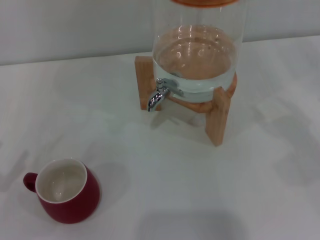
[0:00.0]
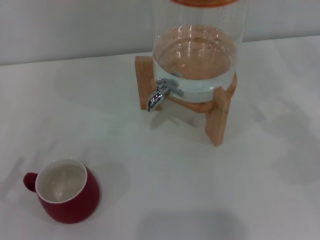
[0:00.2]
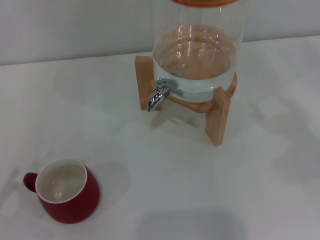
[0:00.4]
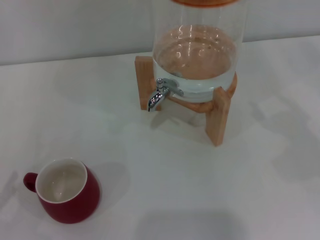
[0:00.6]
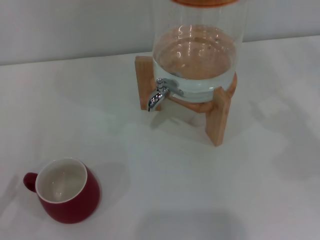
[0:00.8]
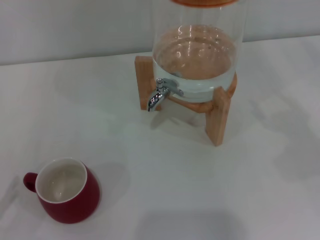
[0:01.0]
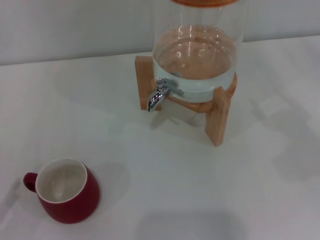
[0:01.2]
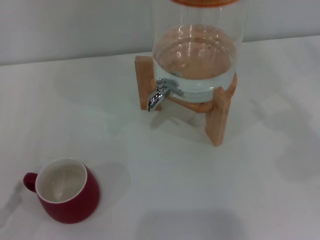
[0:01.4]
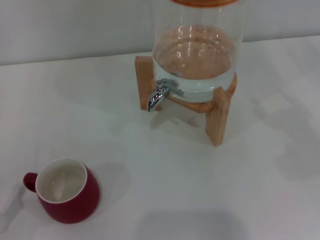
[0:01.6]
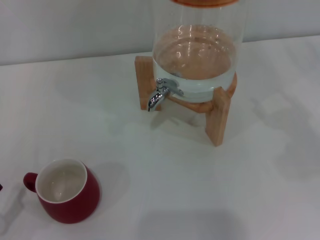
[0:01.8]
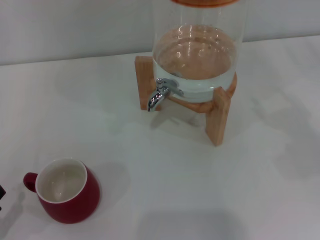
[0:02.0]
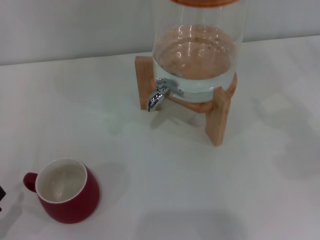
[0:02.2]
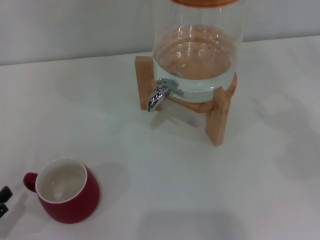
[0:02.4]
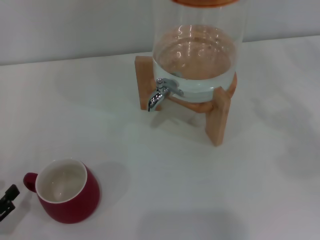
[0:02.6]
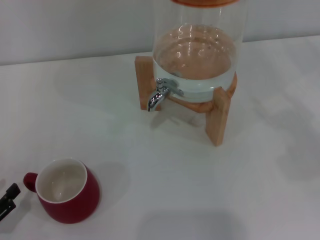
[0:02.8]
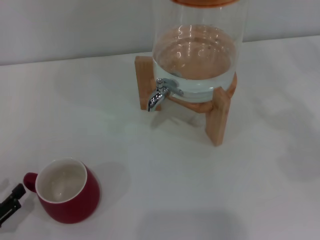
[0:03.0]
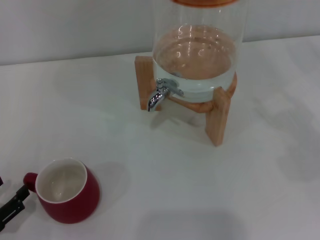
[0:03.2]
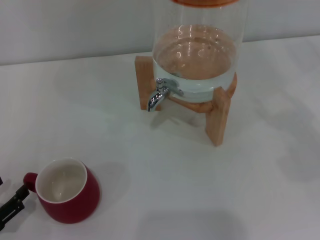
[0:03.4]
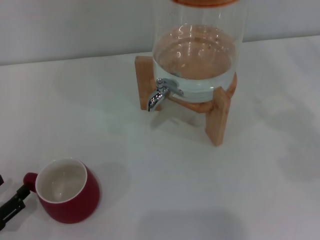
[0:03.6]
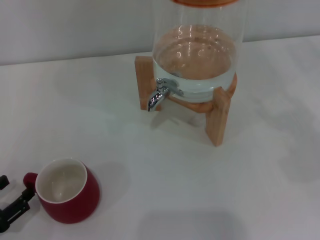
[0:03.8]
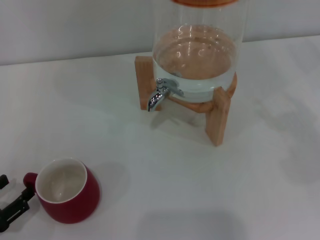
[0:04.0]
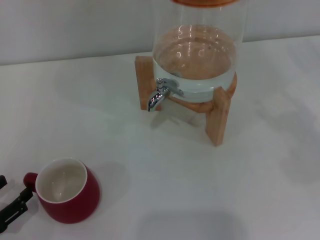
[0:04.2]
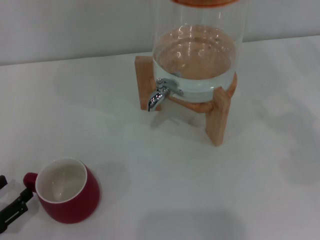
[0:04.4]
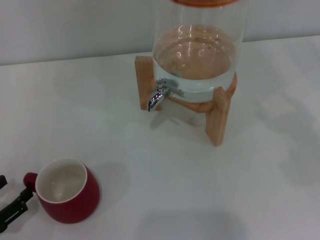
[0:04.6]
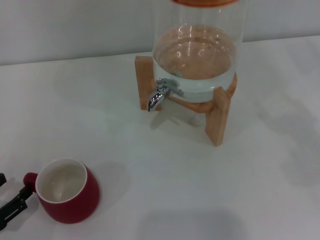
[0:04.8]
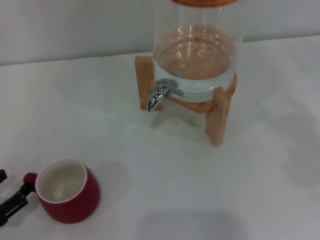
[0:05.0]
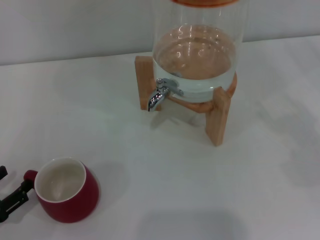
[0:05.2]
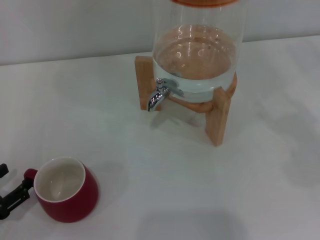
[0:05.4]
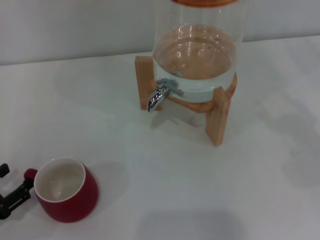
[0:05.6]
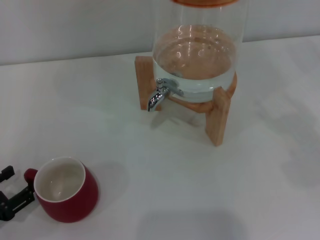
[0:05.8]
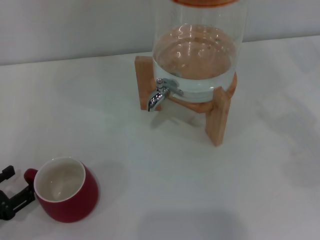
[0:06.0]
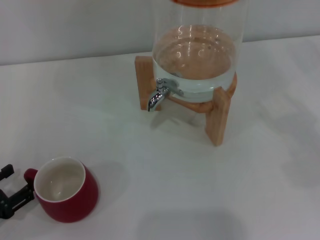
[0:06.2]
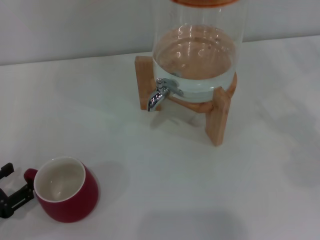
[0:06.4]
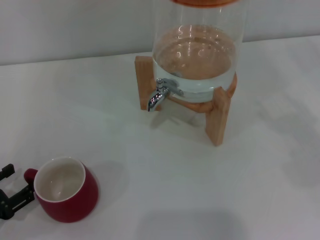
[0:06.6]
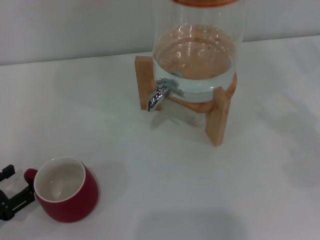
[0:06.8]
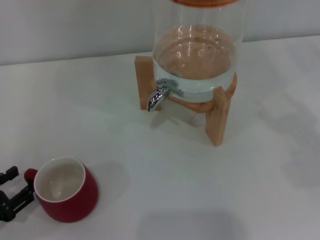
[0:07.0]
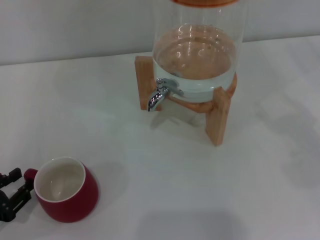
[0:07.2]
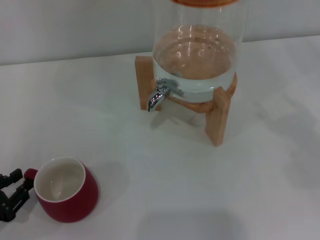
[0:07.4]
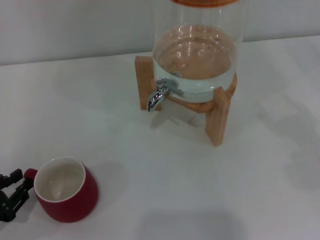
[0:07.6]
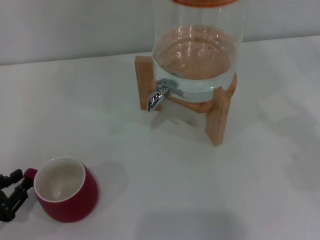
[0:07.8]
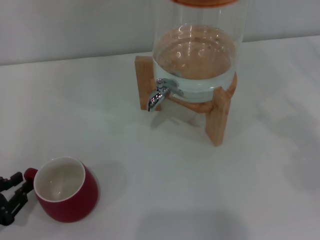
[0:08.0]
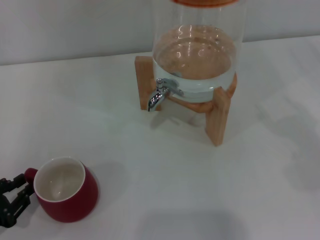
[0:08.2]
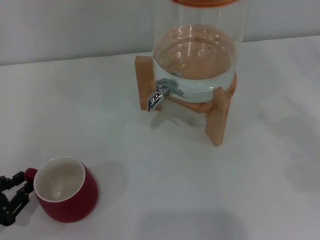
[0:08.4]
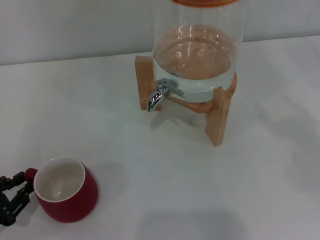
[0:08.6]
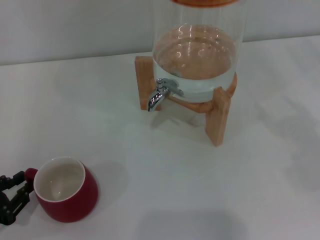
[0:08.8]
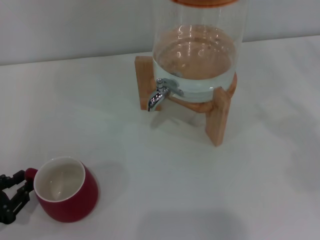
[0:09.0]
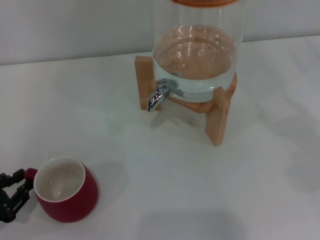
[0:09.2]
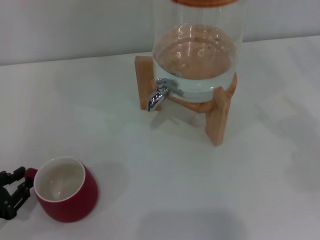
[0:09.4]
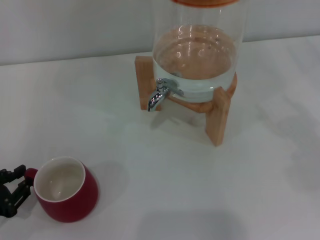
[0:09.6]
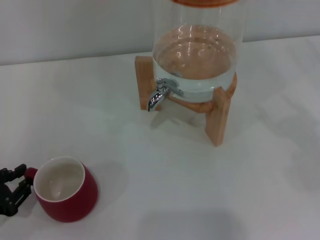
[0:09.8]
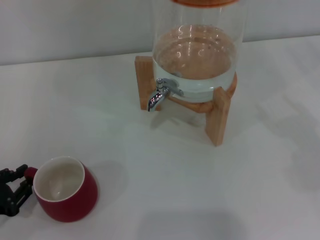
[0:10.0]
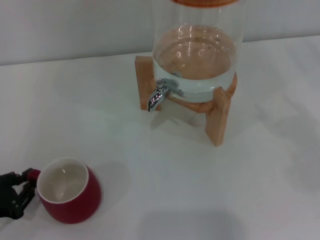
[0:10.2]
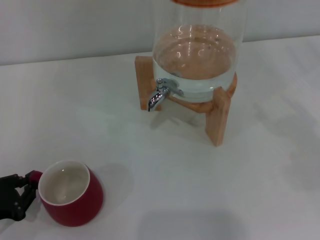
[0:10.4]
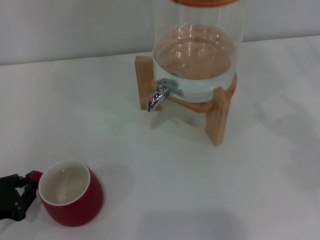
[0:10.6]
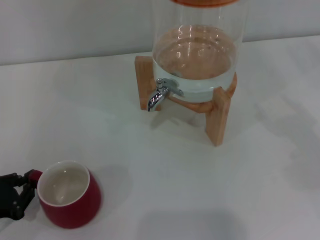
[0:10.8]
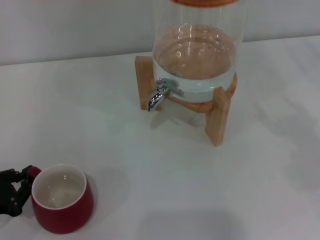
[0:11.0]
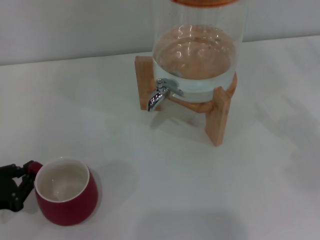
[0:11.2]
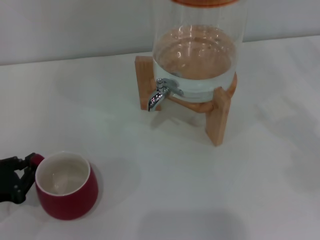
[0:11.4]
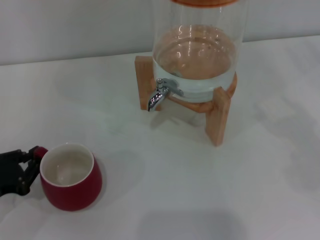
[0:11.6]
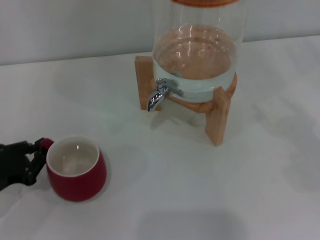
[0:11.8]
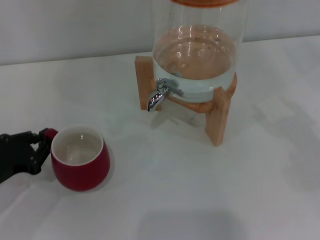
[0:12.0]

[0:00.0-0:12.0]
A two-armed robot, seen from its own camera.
Task of the whole recording: the left gripper pick up the red cup and place it horizontally under the faucet, the right gripper turn on the faucet to fill the cup, and then turn off the faucet.
0:01.6 to 0:03.0: The grippers make only small movements.
0:03.0 to 0:04.4: Both grippers stay about where they are.
0:04.4 to 0:06.0: There are only small adjustments of the grippers.
0:06.0 to 0:07.6: The left gripper closes its fingers.
0:07.6 to 0:09.0: Both grippers stay about where they are.
0:09.0 to 0:10.4: The grippers make only small movements.
0:10.4 to 0:12.0: The left gripper heads forward, covering roughly 5 cm.

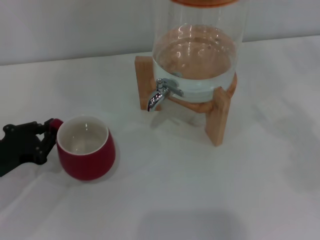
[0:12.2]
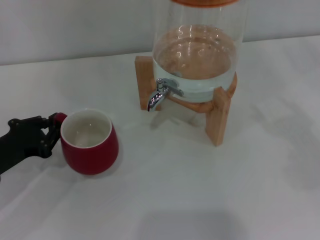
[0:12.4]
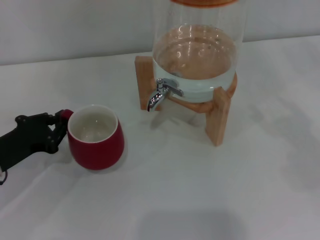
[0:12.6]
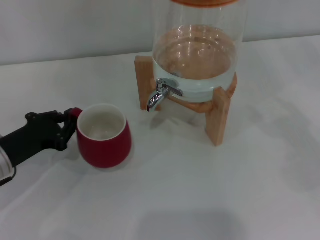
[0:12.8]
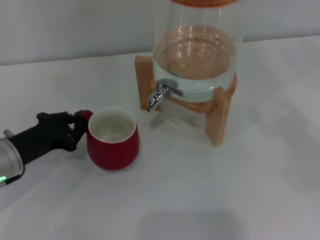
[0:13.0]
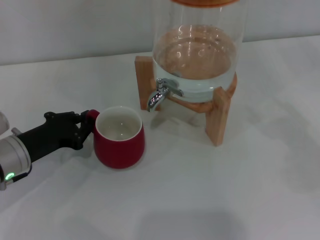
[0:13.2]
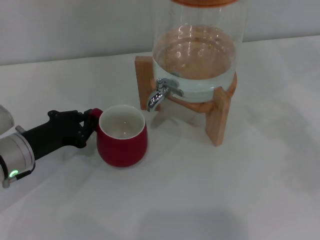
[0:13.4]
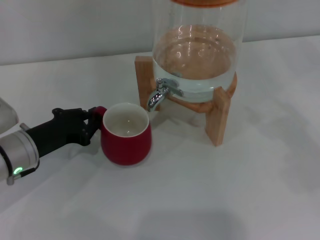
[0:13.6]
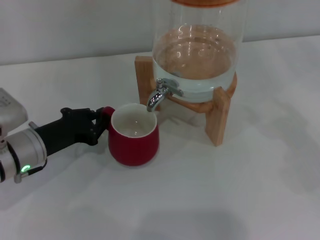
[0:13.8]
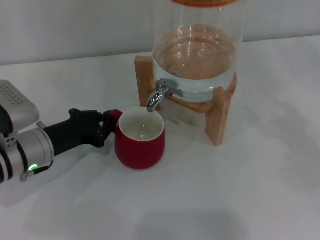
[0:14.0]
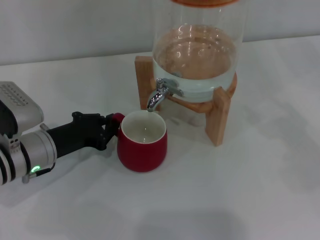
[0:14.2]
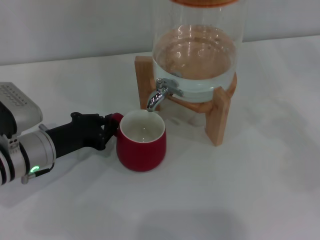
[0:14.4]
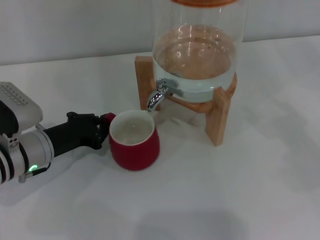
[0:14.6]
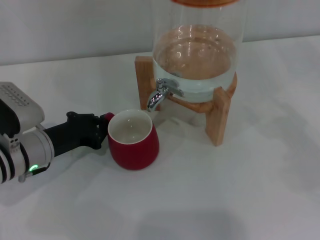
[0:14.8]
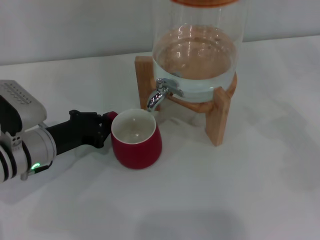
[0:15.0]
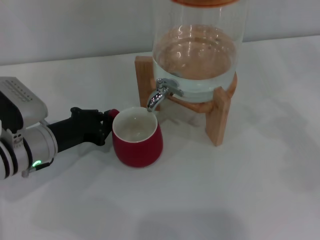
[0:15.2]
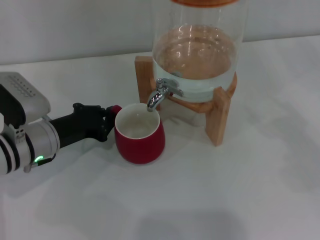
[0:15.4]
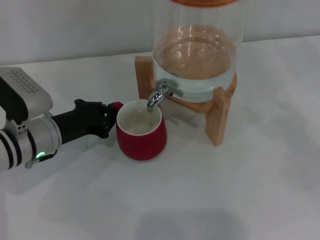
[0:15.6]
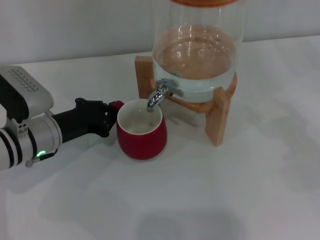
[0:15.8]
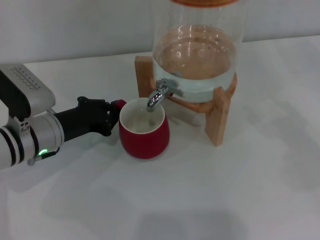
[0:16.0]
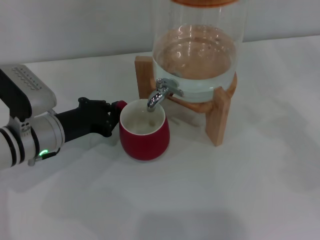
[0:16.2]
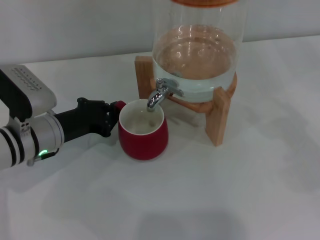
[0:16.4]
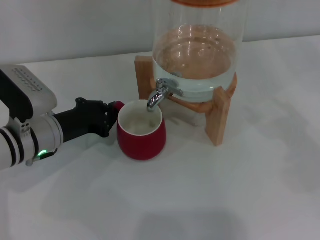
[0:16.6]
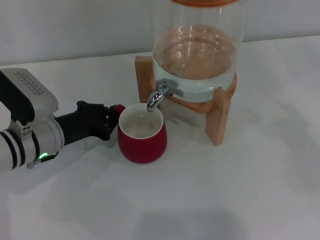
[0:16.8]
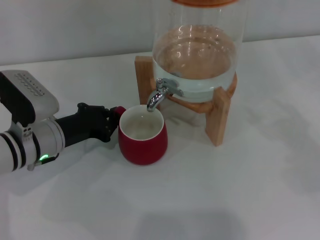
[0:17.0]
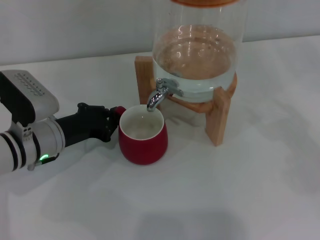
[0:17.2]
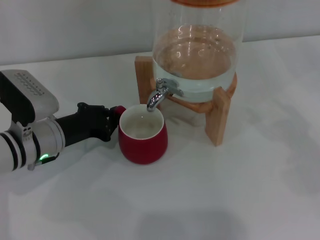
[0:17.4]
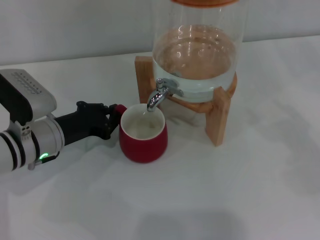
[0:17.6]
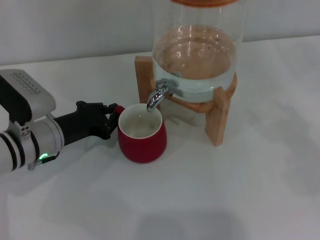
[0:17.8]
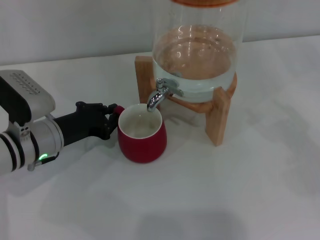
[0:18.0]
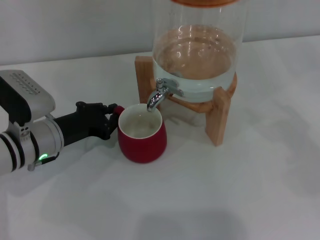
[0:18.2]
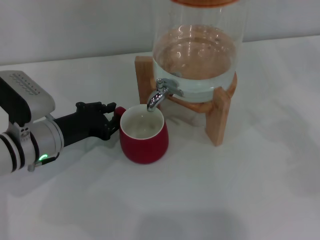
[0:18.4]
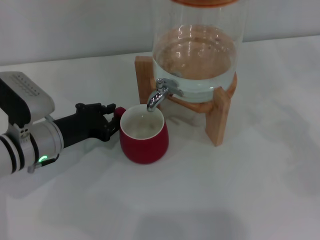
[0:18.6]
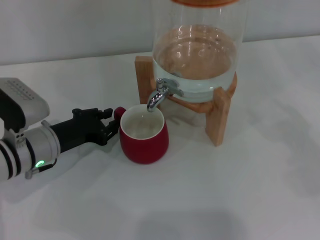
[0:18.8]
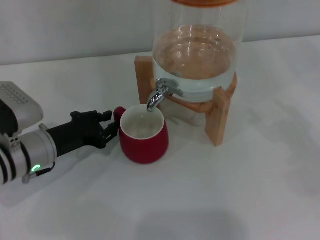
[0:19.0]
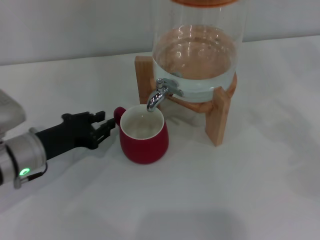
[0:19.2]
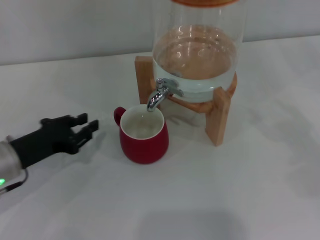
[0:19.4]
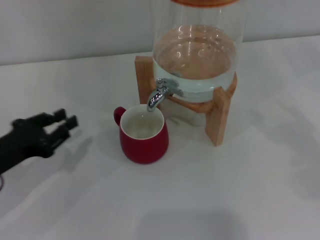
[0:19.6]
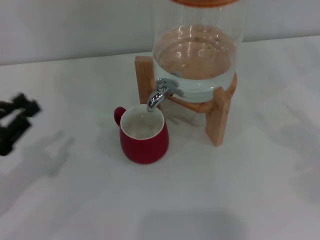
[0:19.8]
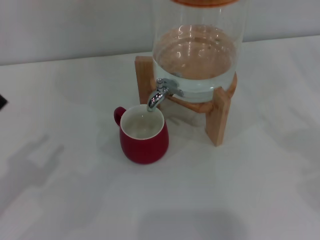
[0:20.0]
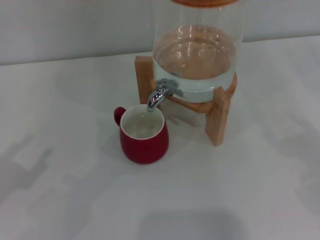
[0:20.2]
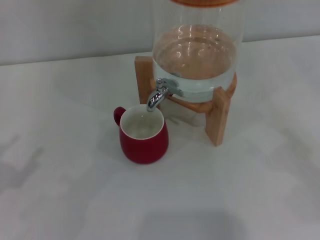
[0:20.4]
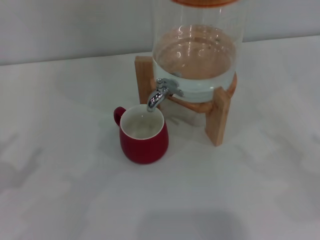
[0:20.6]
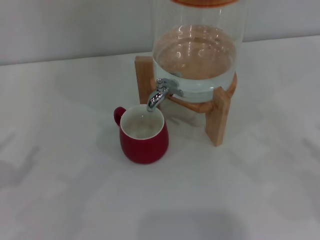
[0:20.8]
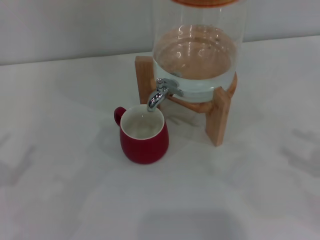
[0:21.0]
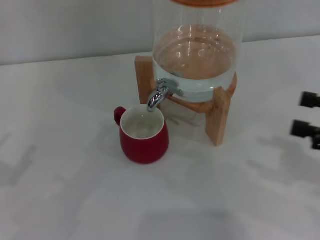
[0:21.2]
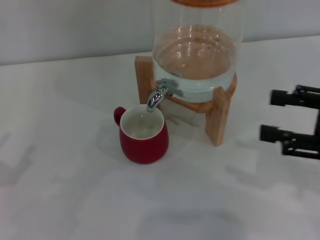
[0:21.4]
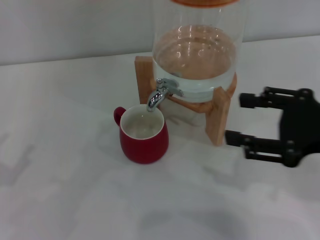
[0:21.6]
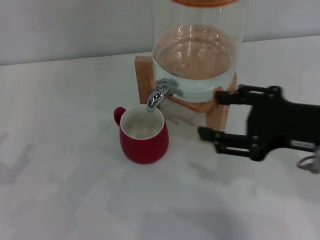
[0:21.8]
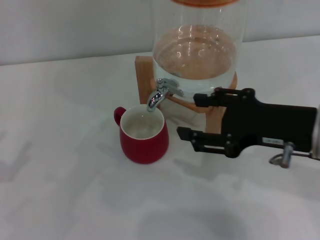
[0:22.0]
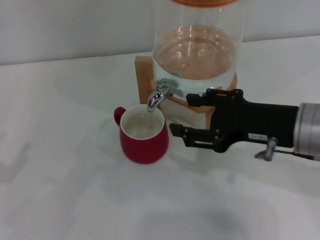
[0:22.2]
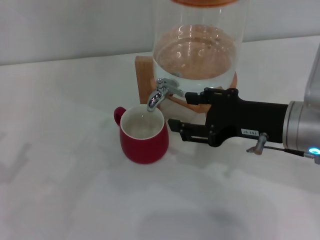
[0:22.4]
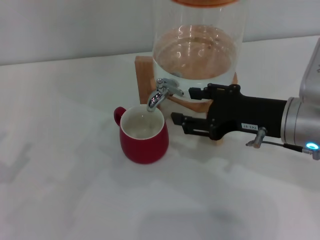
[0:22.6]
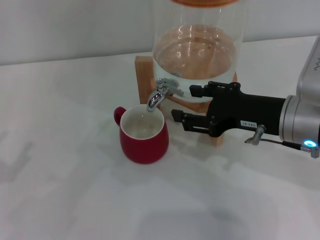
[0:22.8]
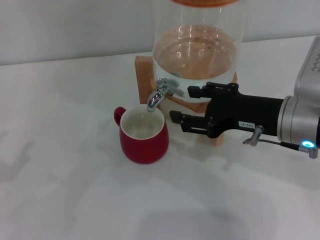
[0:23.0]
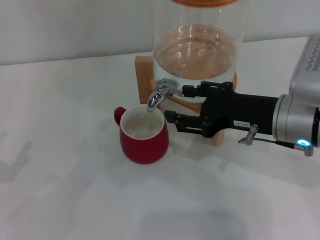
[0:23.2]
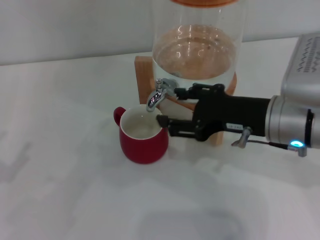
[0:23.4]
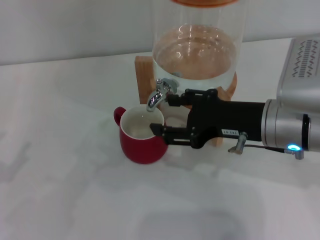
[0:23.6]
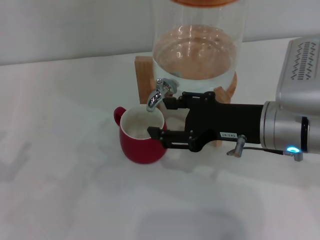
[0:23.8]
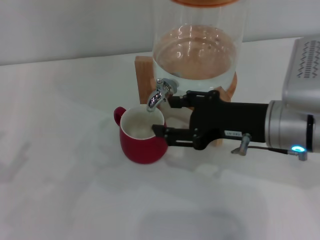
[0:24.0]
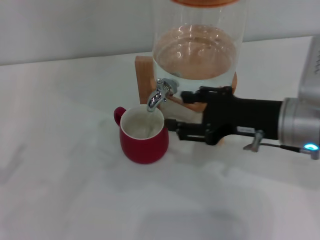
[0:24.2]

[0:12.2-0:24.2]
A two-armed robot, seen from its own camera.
Task of the whole recording: the left gripper pick up the red cup and place it horizontally under the faucet, the right gripper turn on the faucet to fill the cup, and then turn off the faucet.
Step, 0:12.2 to 0:19.2: Move the cup beneath the water dispenser nozzle with the left gripper.
0:12.2 to 0:13.8: The left gripper moves to the right, roughly 10 cm.
0:13.8 to 0:16.6: There are only small adjustments of the grippers.
0:16.6 to 0:18.2: Neither gripper changes place.
0:18.2 to 0:19.8: The left gripper is displaced to the left, backward and upward by about 15 cm.
0:19.8 to 0:21.2: The left gripper changes place by approximately 5 cm, and opens its fingers. Meanwhile the right gripper goes roughly 10 cm to the left.
0:21.2 to 0:22.6: The right gripper is displaced to the left and forward by some 15 cm.
0:22.6 to 0:24.2: The grippers stay close to where they were, moving slightly.
